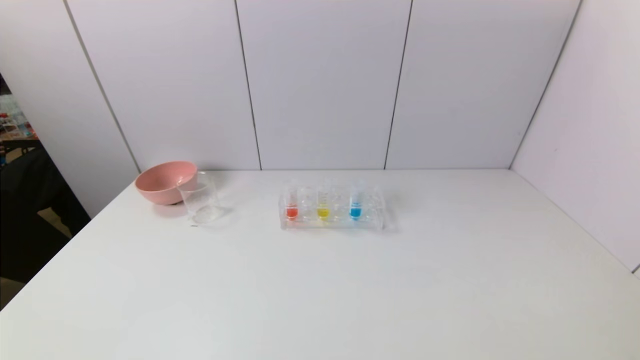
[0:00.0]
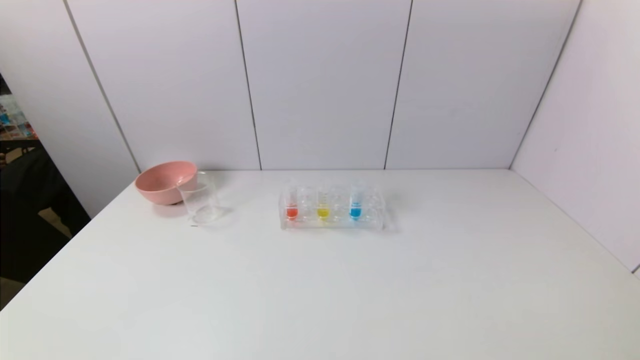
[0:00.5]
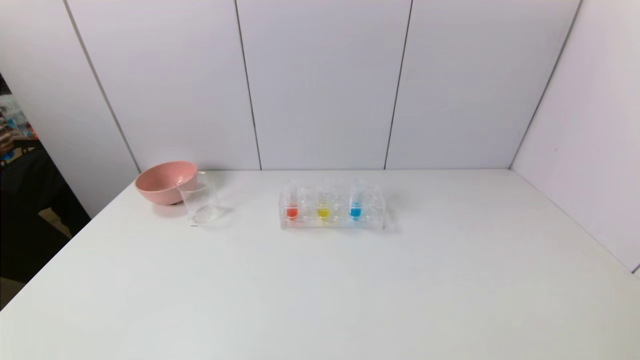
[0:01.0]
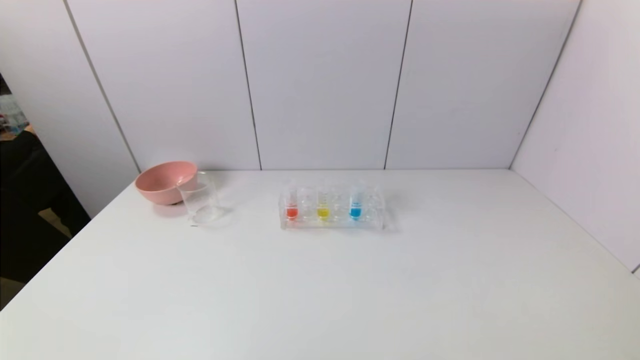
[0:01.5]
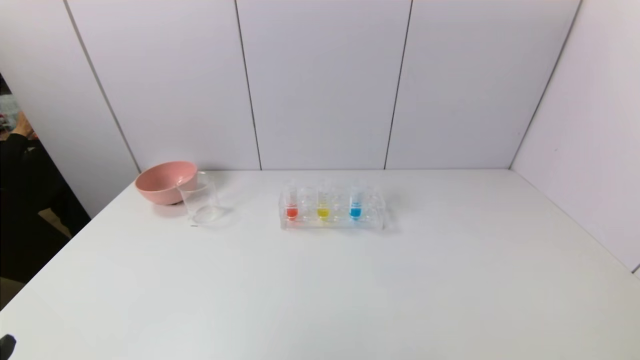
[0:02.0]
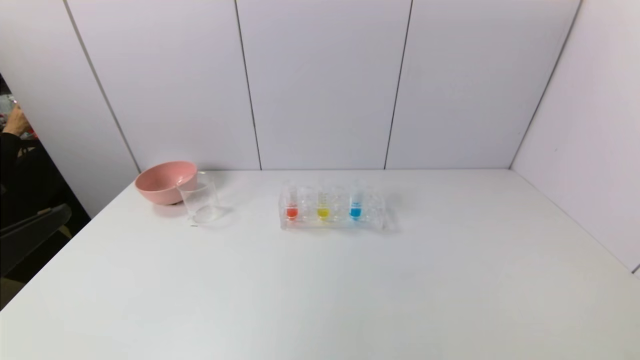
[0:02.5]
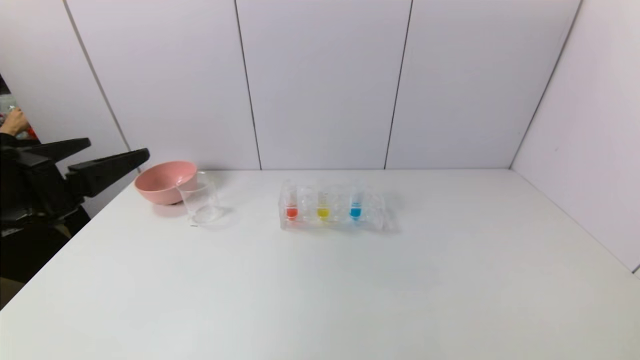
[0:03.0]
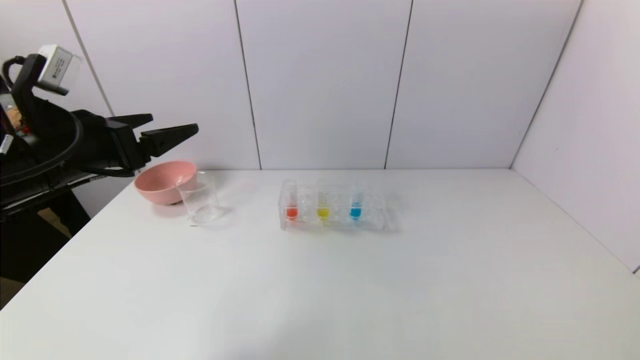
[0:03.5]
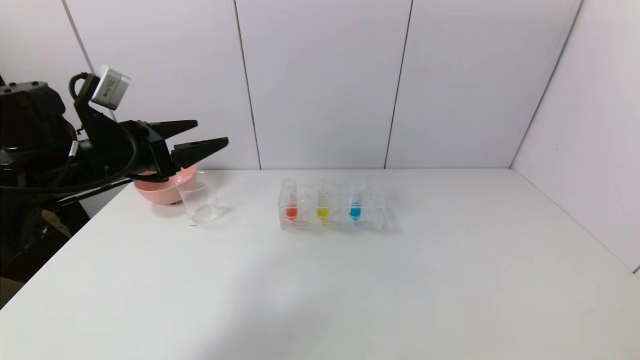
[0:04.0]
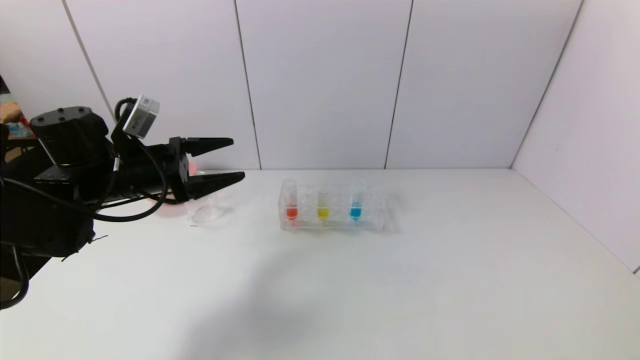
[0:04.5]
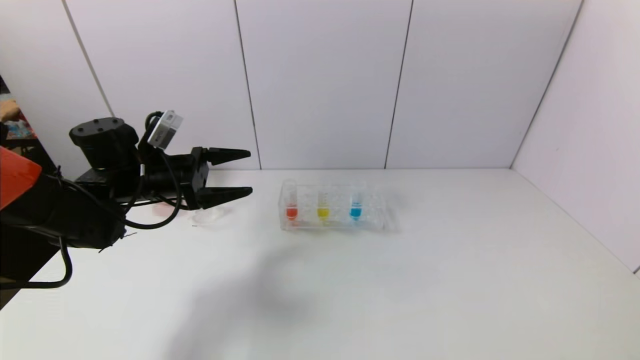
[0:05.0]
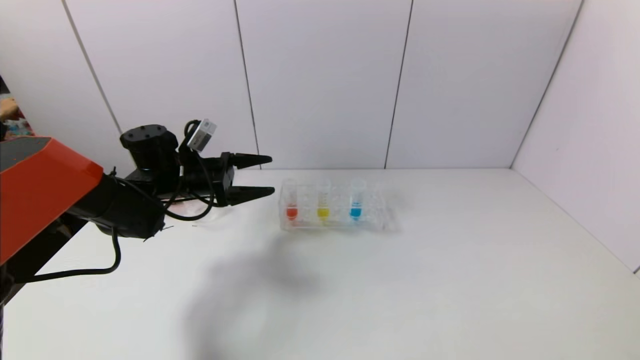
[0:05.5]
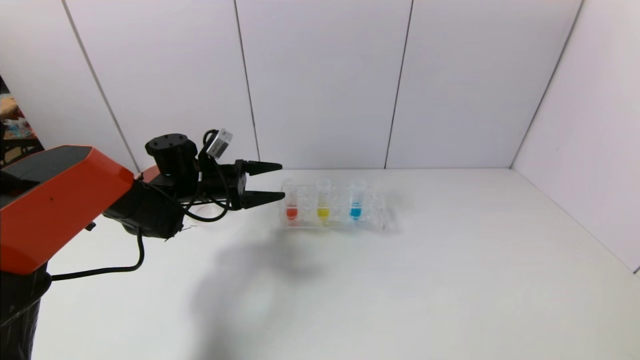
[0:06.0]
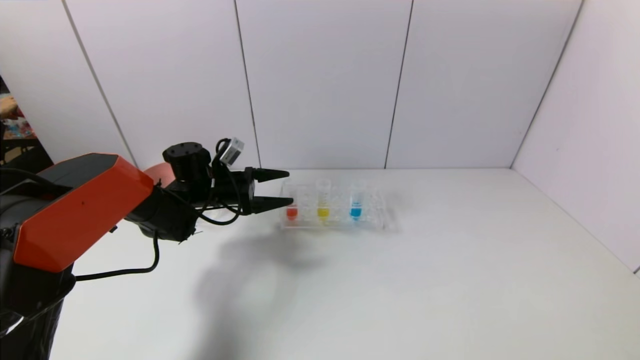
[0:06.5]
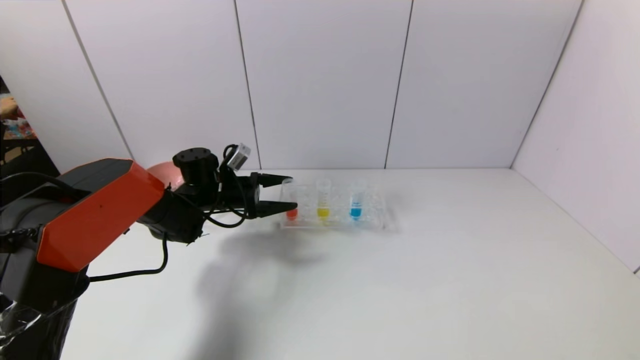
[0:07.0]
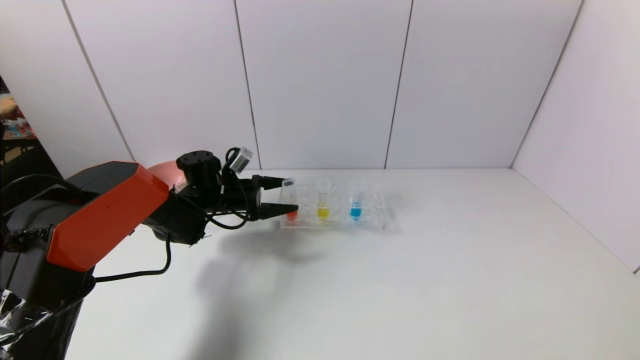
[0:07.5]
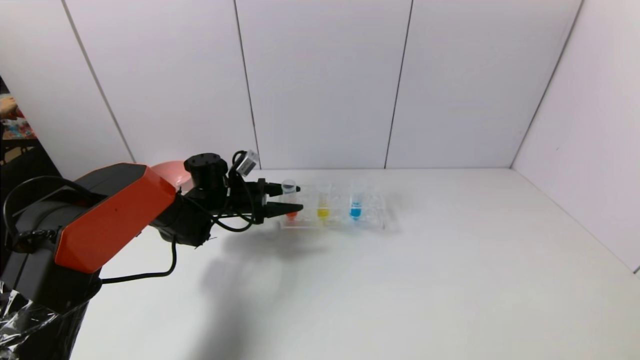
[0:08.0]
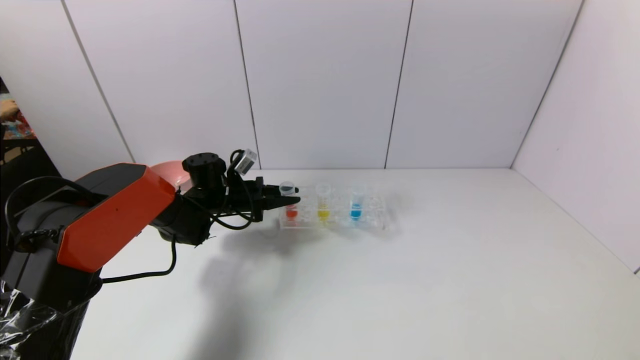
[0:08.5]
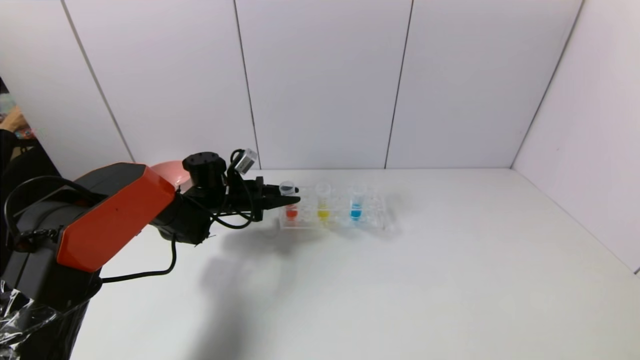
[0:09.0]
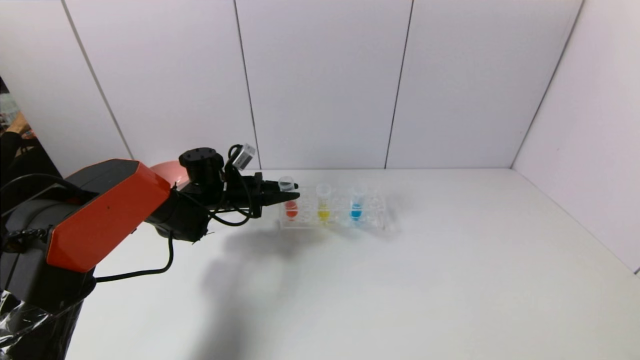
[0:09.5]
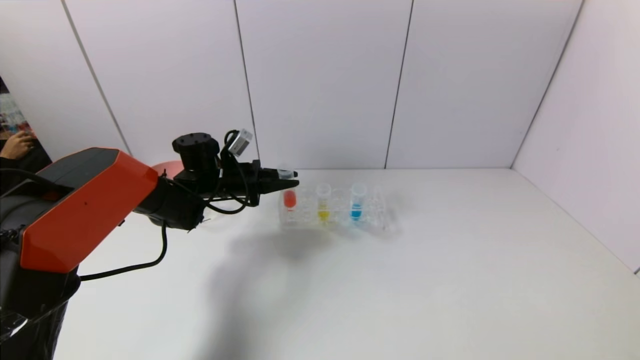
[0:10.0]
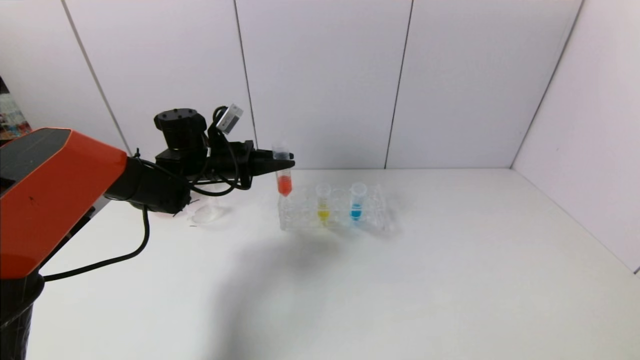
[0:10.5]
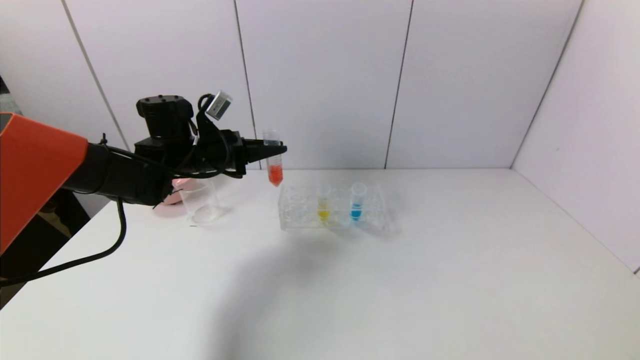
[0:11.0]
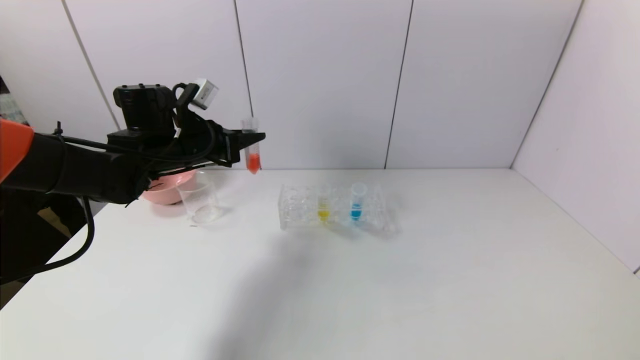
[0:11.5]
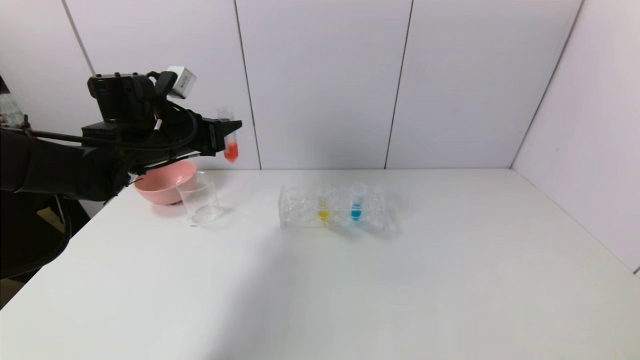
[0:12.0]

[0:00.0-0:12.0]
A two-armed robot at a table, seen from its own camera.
Task of the whole recording: pick up the test tube with red pigment and the test tube with blue pigment by grippers and pour them into the container.
Step, 0.0 to 8.5 s: Grasp the red reagent with the left gripper.
2.0 to 4.0 s: The left gripper travels forward by about 30 cm.
4.0 to 6.0 s: The left gripper shifts some 20 cm forward, downward and to the right.
6.0 to 8.0 s: The left gripper shifts some 5 cm downward, and closes its fingers.
8.0 to 10.0 s: The left gripper closes its fingers.
10.0 to 12.0 s: The left gripper shifts approximately 15 cm upward, backward and to the left.

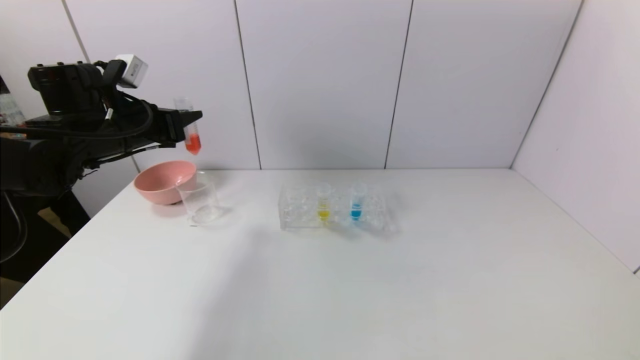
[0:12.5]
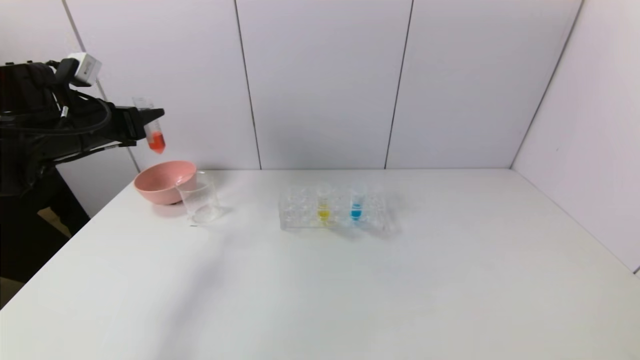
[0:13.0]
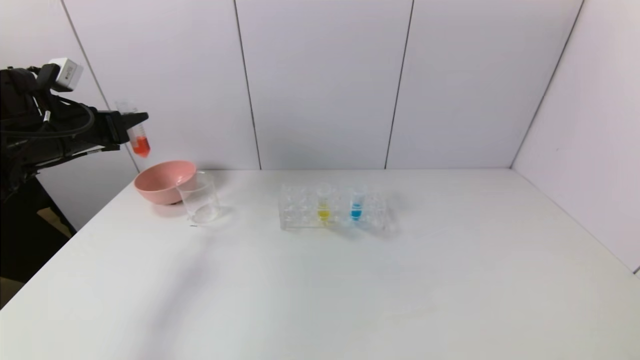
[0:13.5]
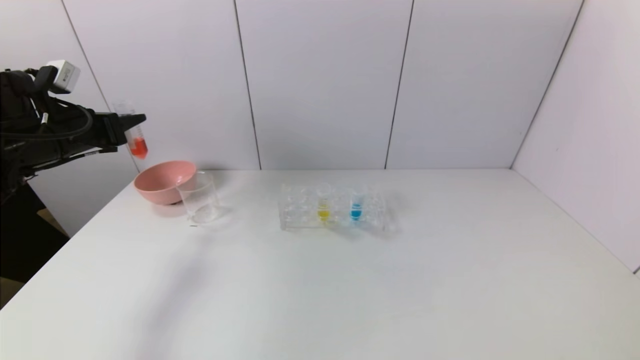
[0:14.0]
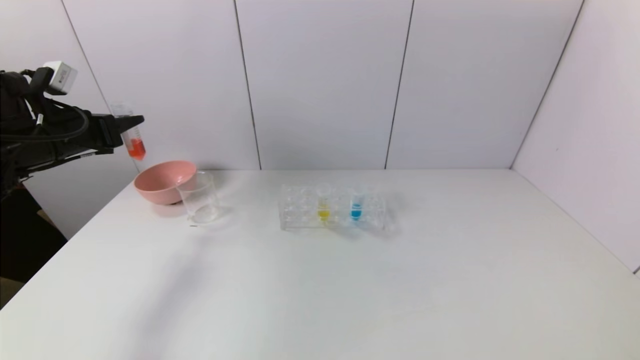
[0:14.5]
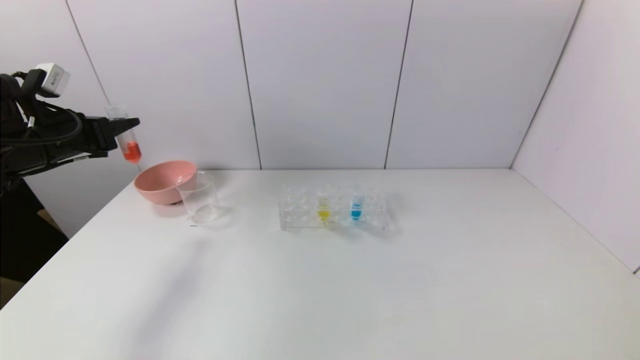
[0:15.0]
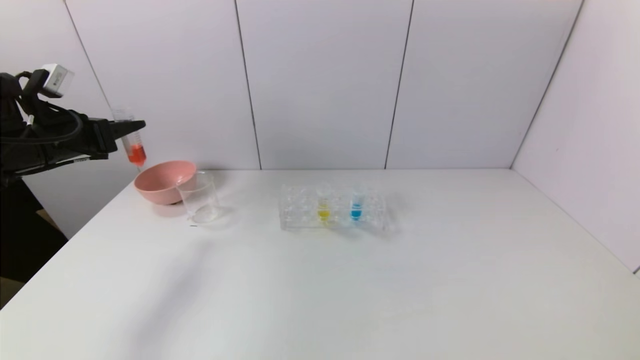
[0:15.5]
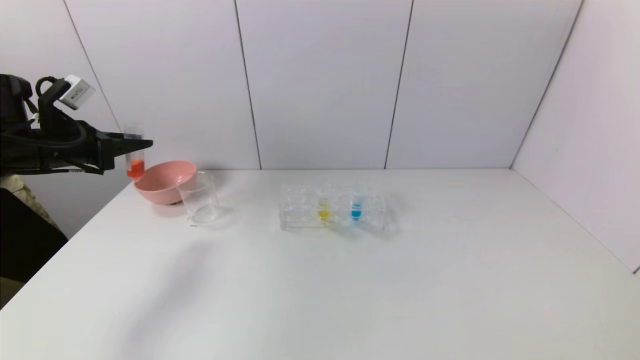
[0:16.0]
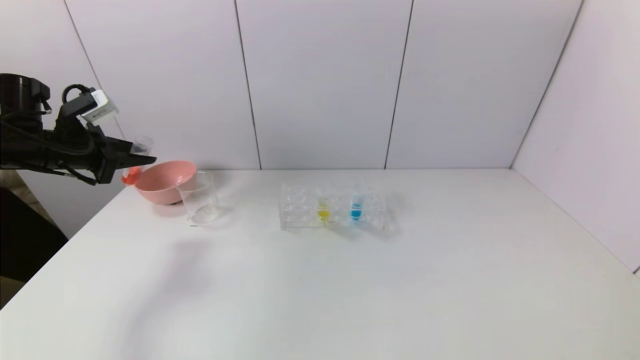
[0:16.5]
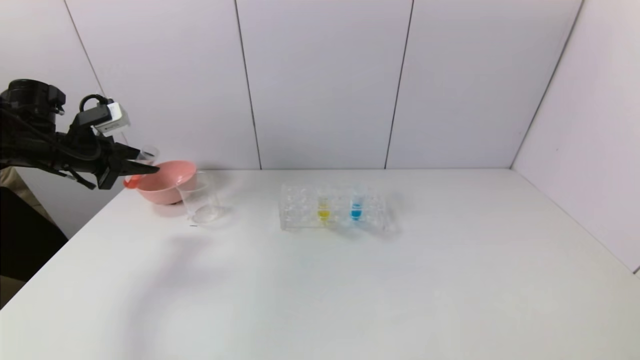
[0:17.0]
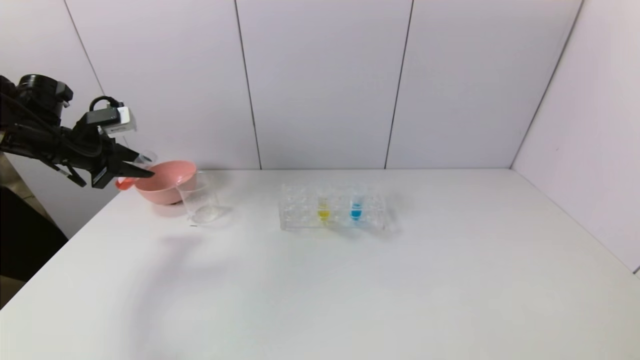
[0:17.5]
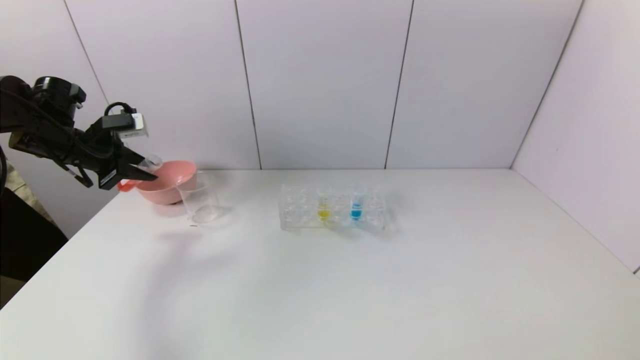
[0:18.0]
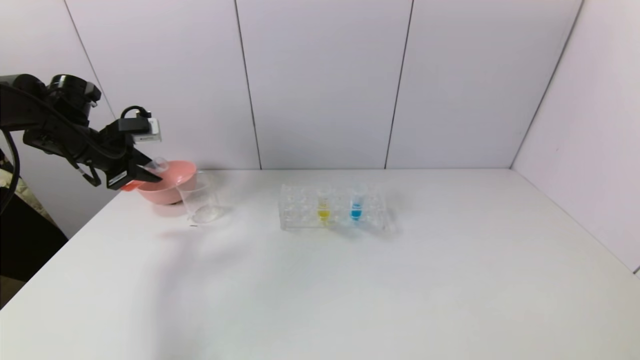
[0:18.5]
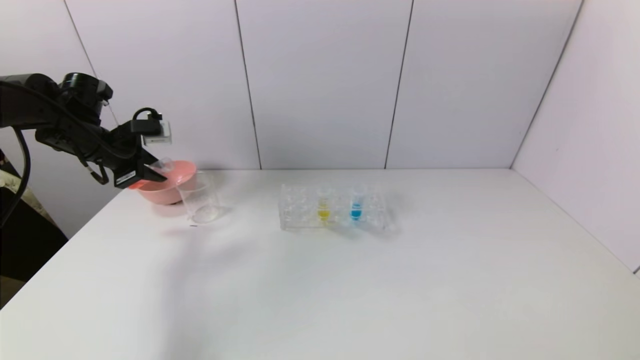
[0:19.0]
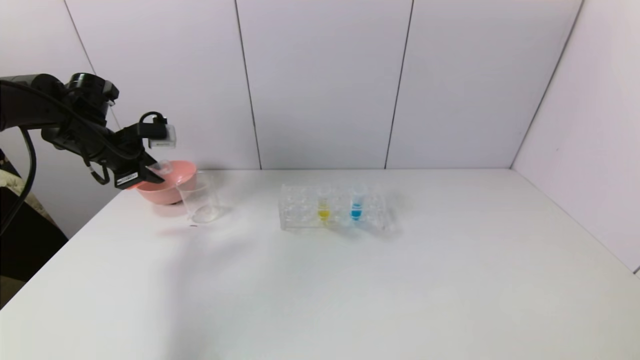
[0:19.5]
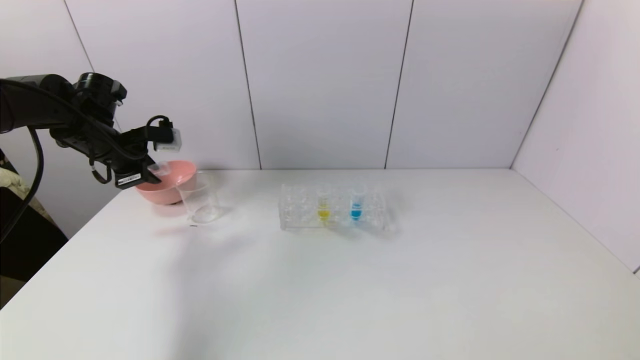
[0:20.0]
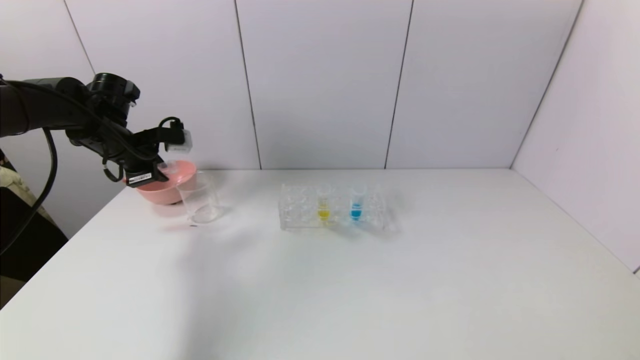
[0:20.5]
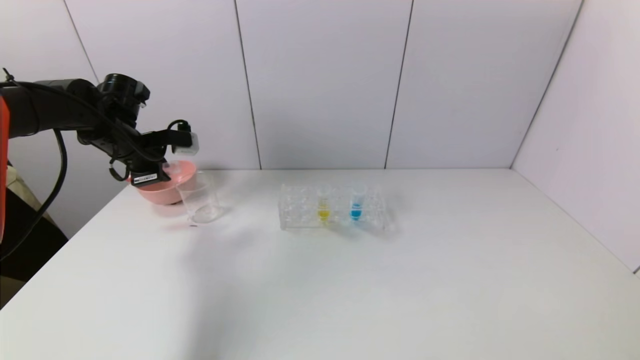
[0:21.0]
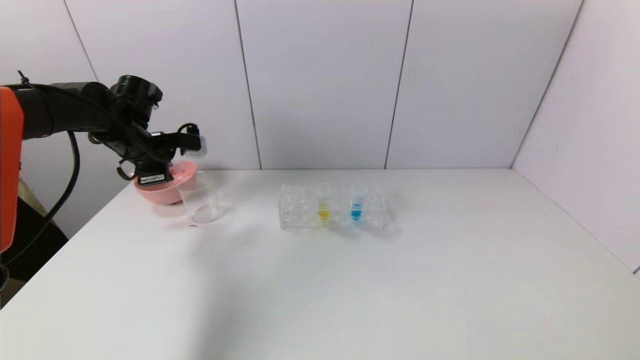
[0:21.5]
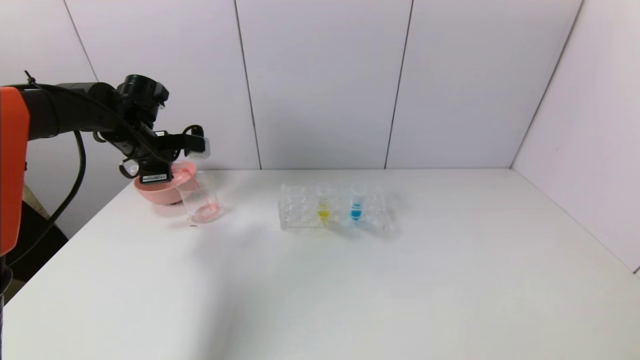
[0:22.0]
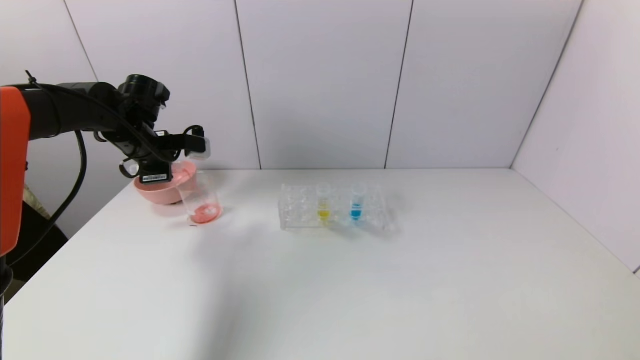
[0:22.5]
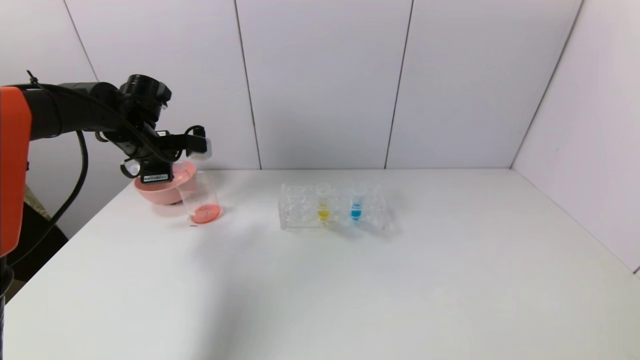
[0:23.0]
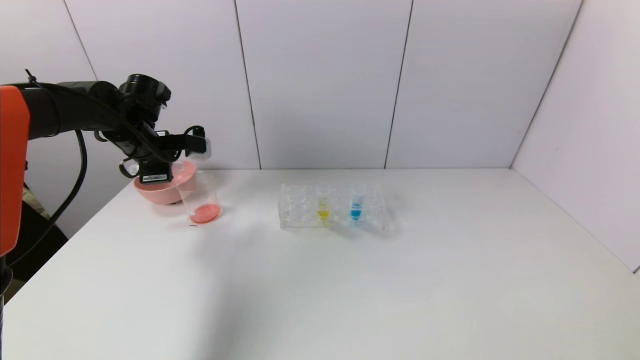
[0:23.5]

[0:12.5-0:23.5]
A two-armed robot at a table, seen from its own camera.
Task of the whole recording: pick up the test tube with red pigment and the test tube with blue pigment by grippers and pour them into the container.
12.5 to 14.5 s: The left gripper travels to the left by about 10 cm.
16.0 to 18.0 s: The left gripper moves forward, about 5 cm.
20.0 to 21.5 s: The grippers make only small movements.
21.5 to 23.5 s: Both grippers stay about where they are.
